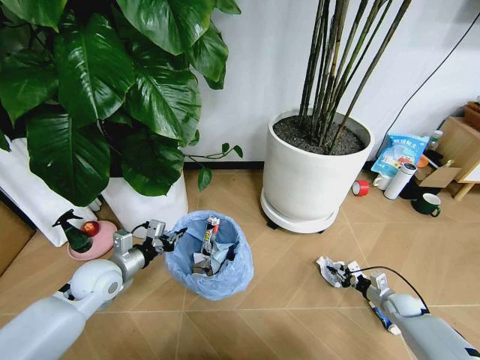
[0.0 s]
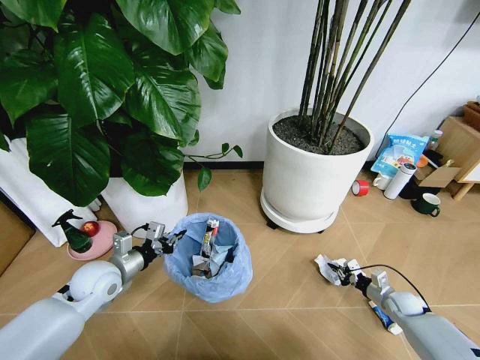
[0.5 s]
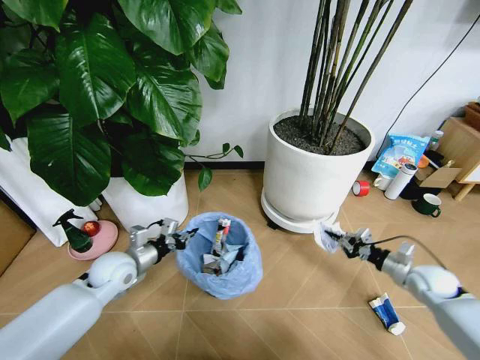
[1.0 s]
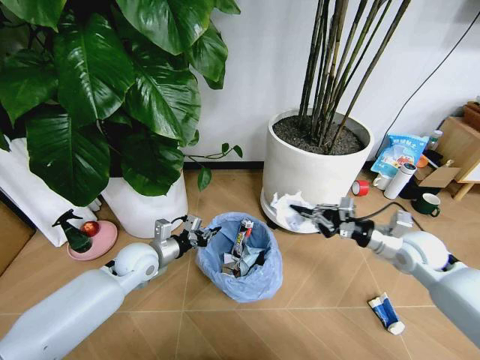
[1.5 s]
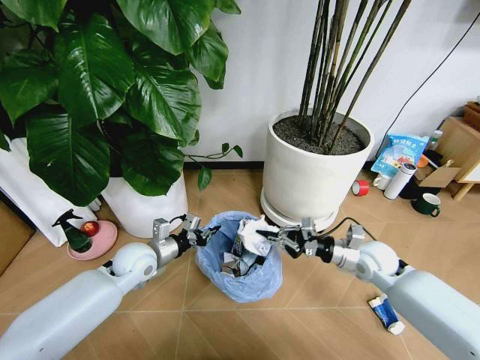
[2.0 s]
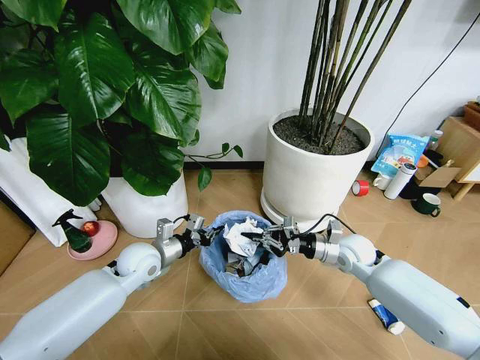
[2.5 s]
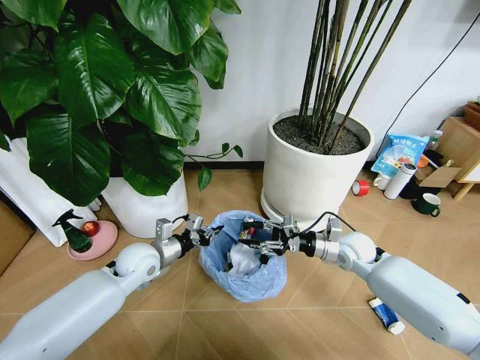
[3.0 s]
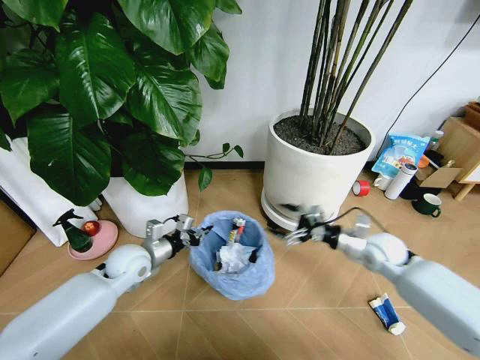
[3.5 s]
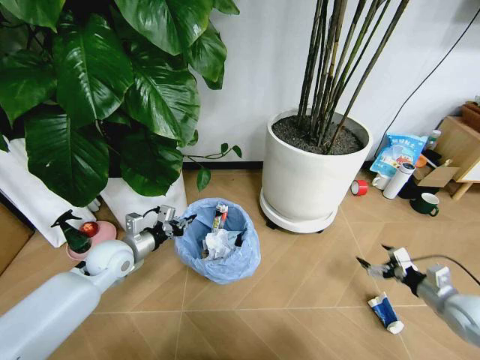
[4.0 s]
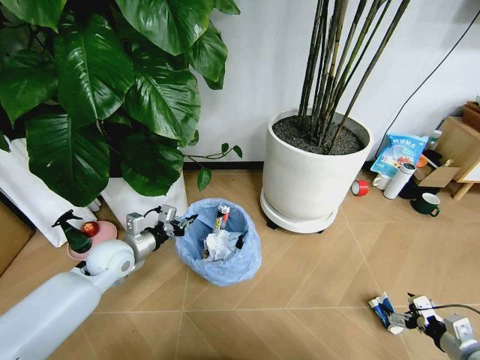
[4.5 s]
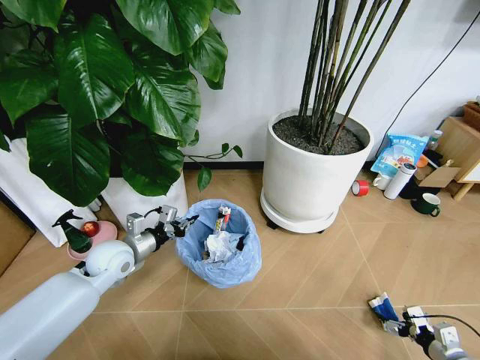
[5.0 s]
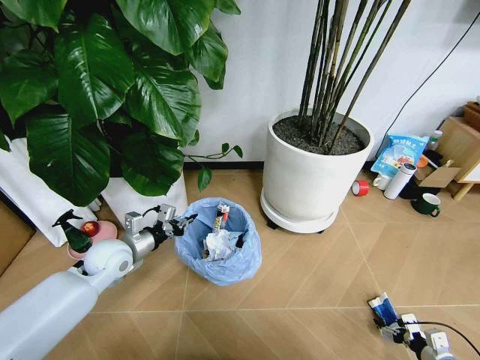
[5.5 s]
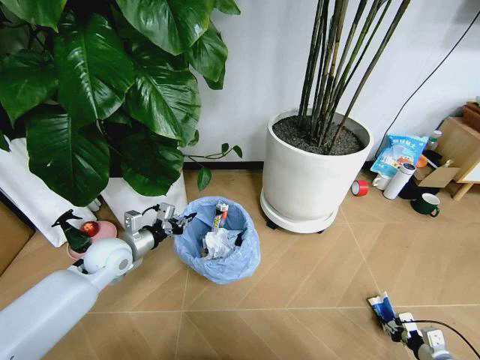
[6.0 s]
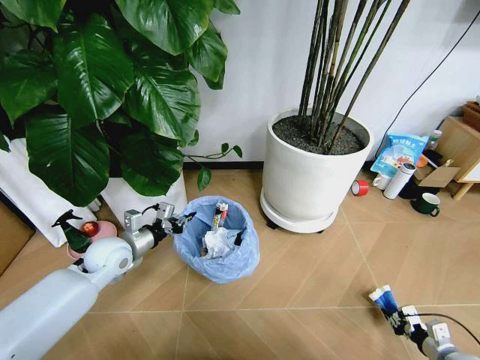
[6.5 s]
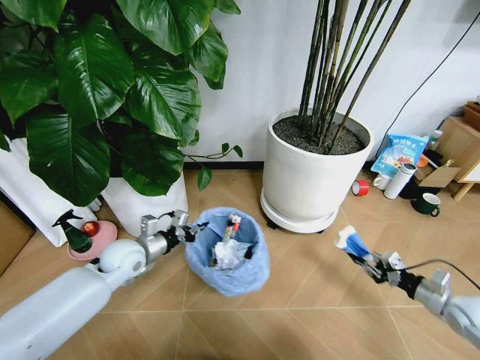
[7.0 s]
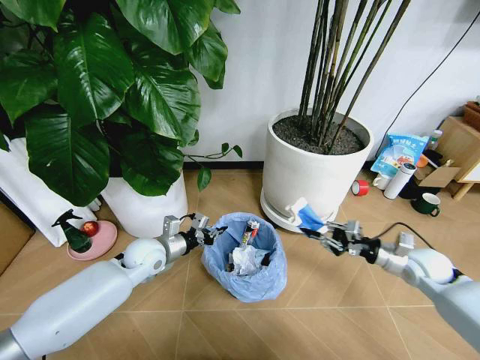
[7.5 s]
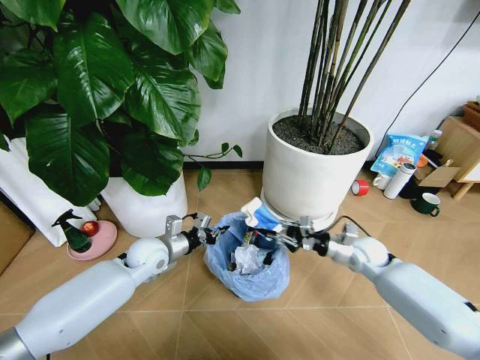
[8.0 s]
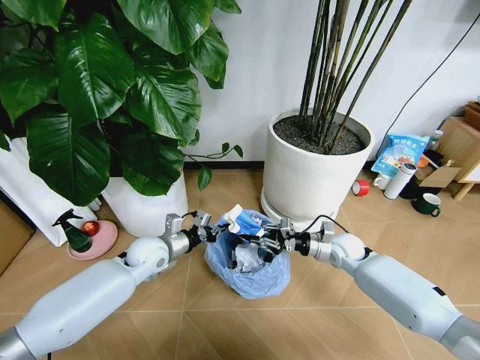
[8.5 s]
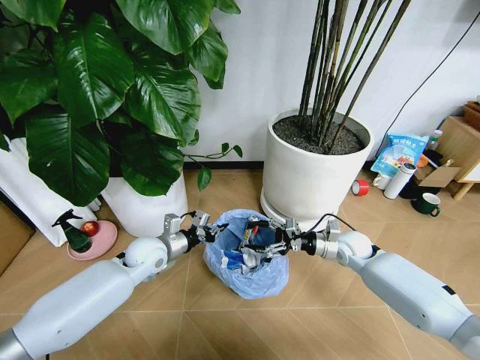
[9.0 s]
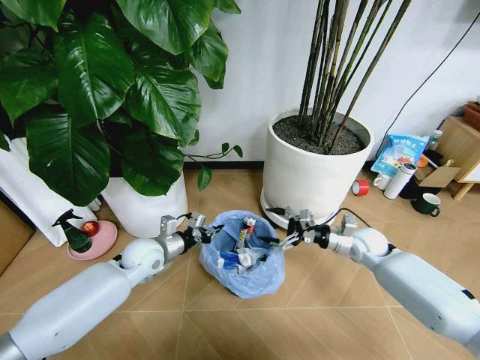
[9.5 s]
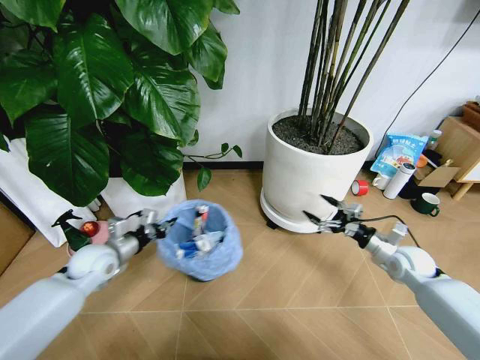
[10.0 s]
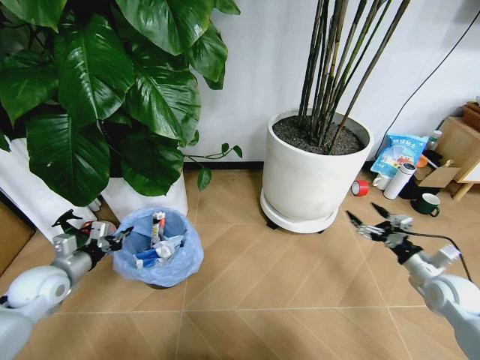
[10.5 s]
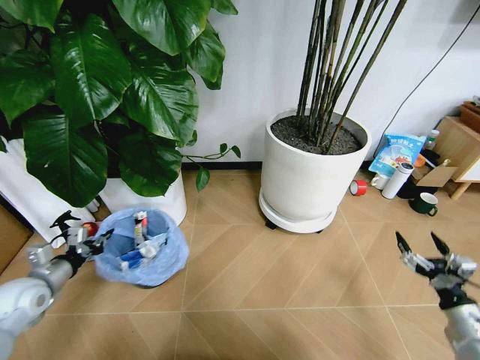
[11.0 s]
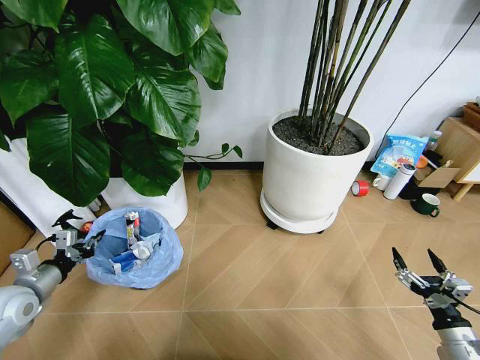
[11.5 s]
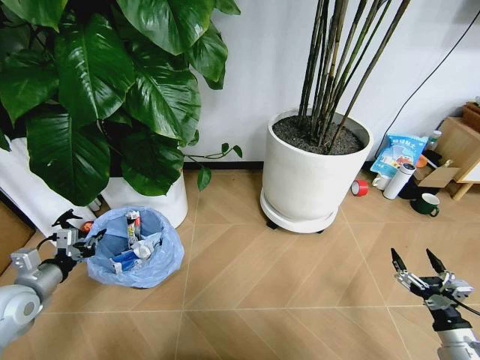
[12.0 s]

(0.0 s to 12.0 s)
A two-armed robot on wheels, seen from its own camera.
Task of the whole recording: Pick up the trash bin and place the garbage on the floor into it.
0.0 s - 2.0 s: The left gripper goes about 5 cm to the right; the right gripper moves upward and to the left, roughly 25 cm.
2.0 s - 4.0 s: The right gripper moves to the right and backward, approximately 25 cm, and opens its fingers. The left gripper is displaced to the left by roughly 5 cm.
4.0 s - 6.0 s: The right gripper is displaced downward and backward by roughly 20 cm, and closes up.
6.0 s - 8.0 s: The left gripper moves to the right, some 10 cm. Meanwhile the right gripper heads forward, to the left and upward, covering approximately 35 cm.
8.0 s - 10.0 s: The left gripper goes roughly 10 cm to the left, while the right gripper heads to the right, covering some 10 cm, and opens.
10.0 s - 12.0 s: The right gripper shifts some 25 cm backward, while the left gripper is displaced to the left and backward by roughly 15 cm.

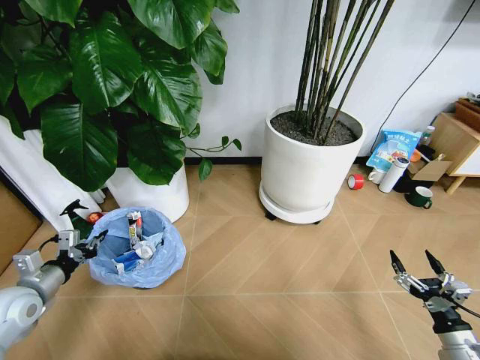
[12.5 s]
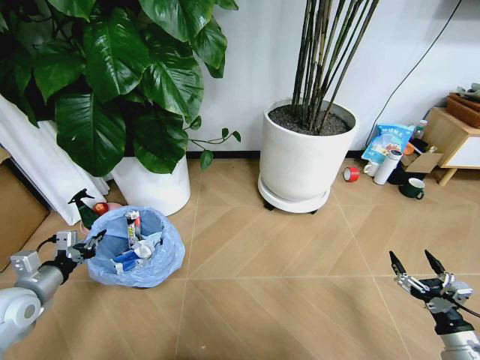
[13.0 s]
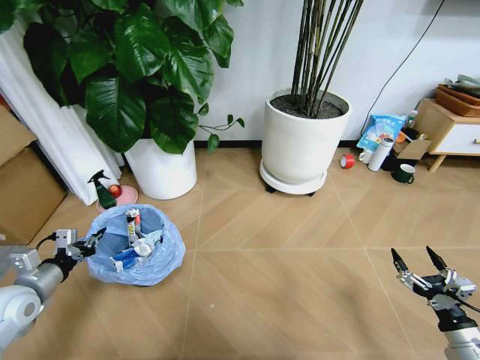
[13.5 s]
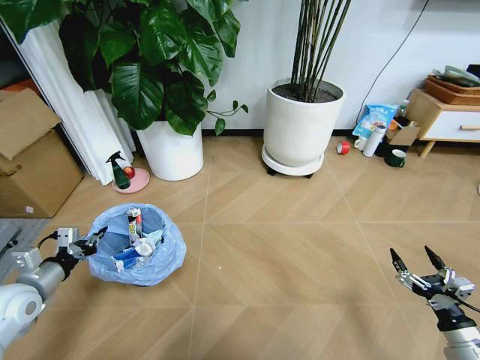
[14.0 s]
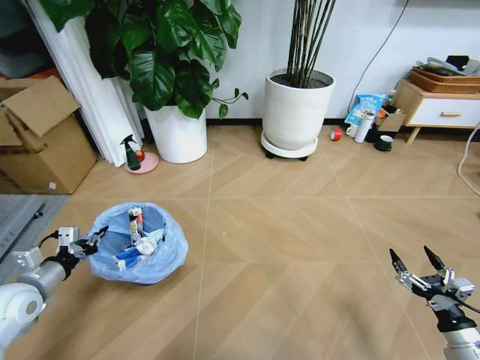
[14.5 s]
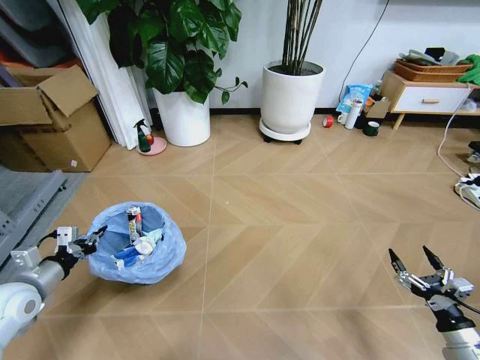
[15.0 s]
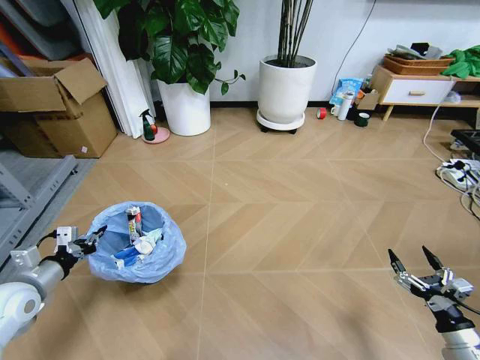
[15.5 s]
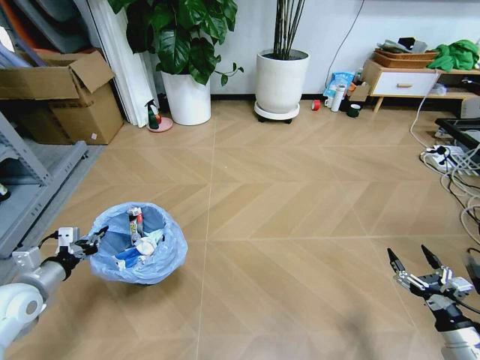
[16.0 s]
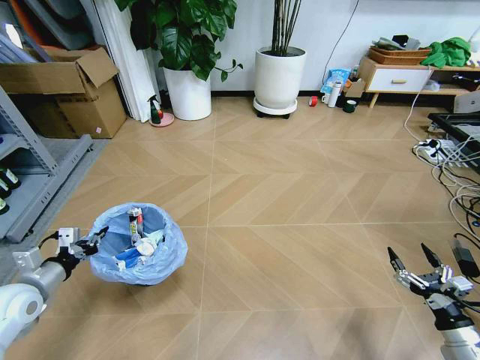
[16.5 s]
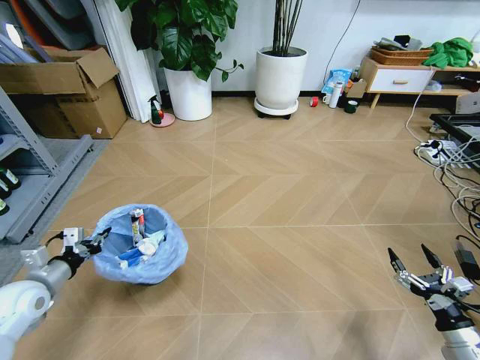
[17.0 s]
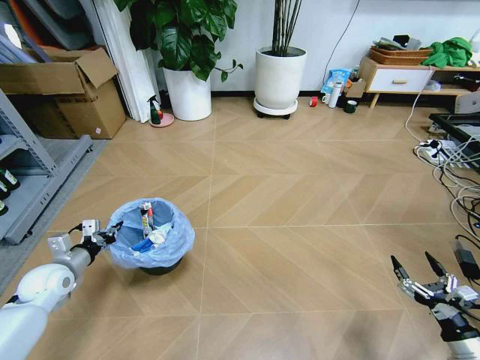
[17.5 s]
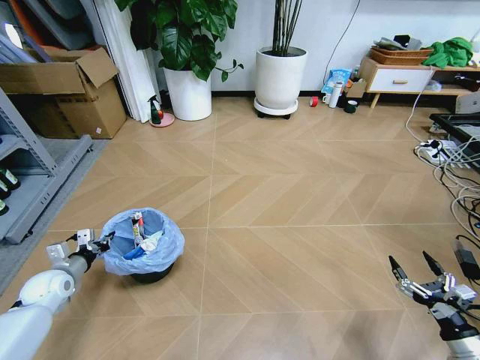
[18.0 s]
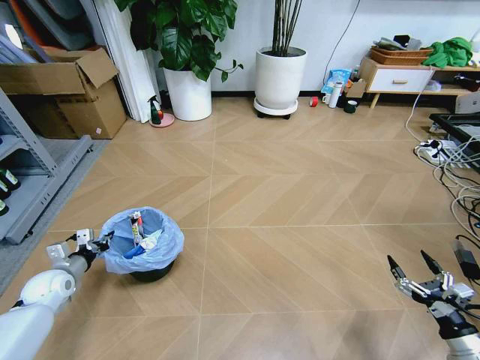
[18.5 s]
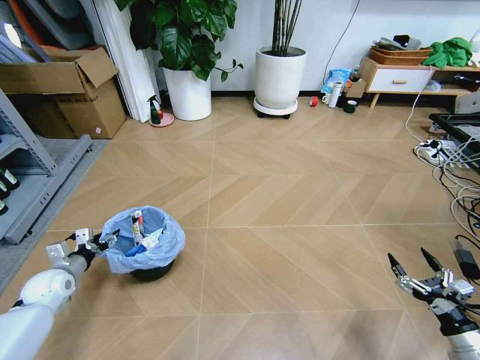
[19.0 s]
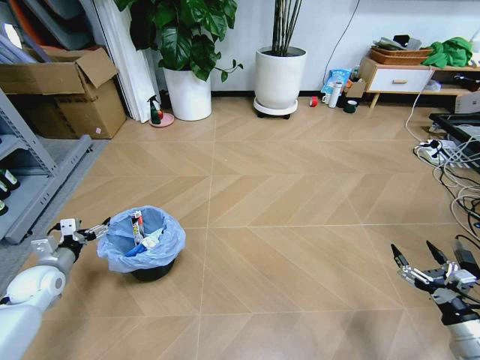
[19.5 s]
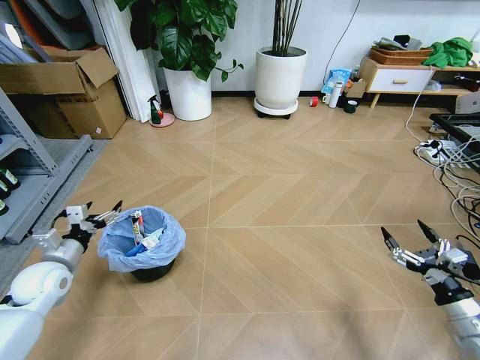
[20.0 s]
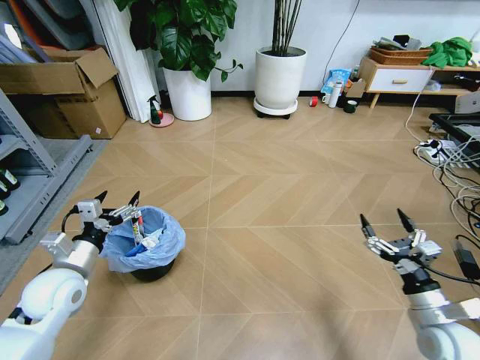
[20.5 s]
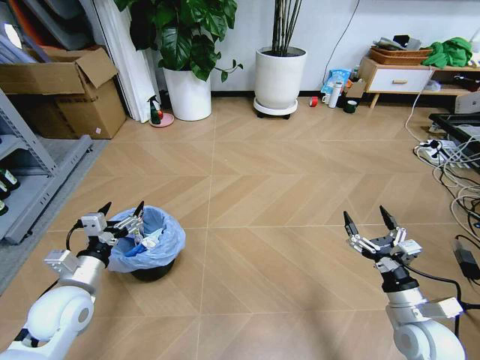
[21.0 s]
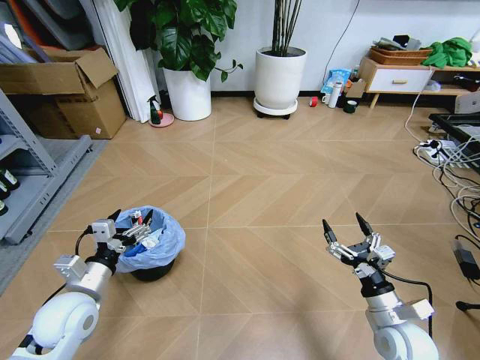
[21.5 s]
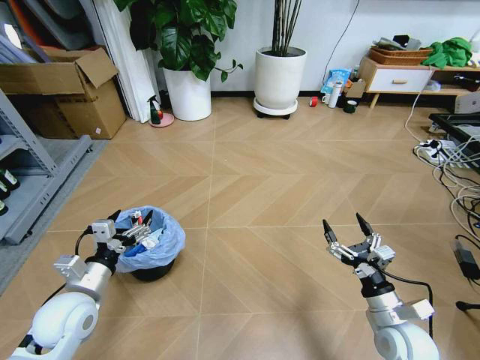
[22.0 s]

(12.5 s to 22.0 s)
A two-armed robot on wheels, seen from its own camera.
Task of the whole recording: Pick up the trash bin and place the garbage on the floor into it.
16.5 s - 18.0 s: The left gripper moves downward and forward, roughly 10 cm.
18.0 s - 20.0 s: The left gripper heads upward, covering about 5 cm, and opens, while the right gripper is displaced upward and forward by approximately 10 cm.
20.0 s - 22.0 s: The left gripper moves to the right and backward, roughly 15 cm; the right gripper travels to the left by roughly 15 cm.
